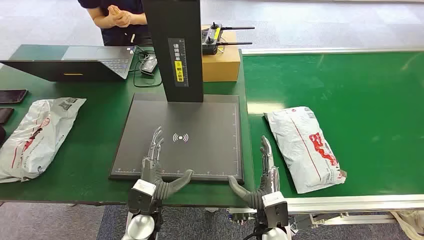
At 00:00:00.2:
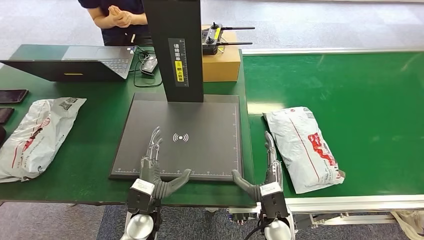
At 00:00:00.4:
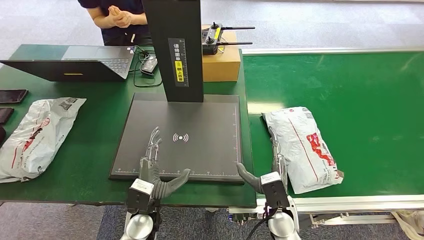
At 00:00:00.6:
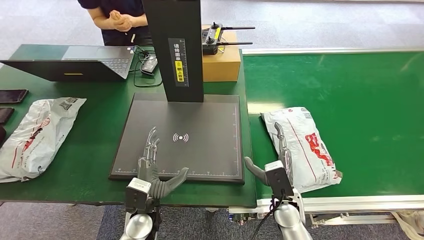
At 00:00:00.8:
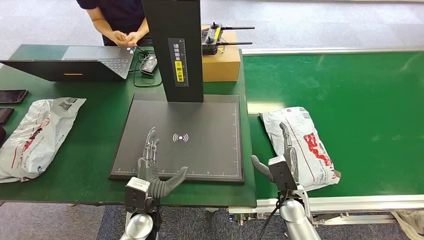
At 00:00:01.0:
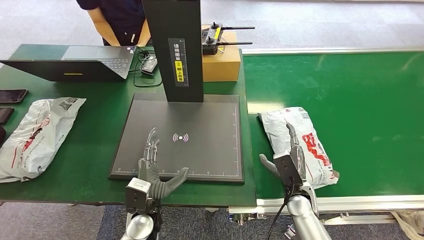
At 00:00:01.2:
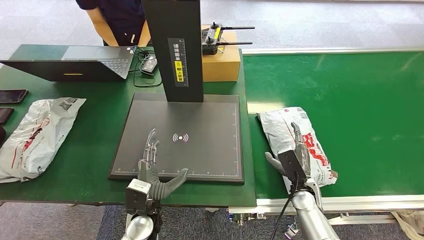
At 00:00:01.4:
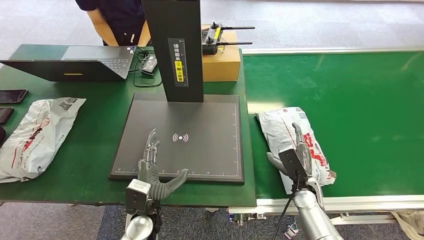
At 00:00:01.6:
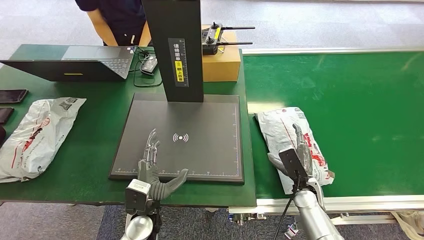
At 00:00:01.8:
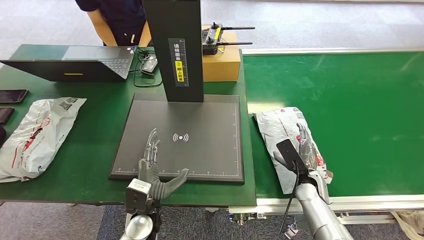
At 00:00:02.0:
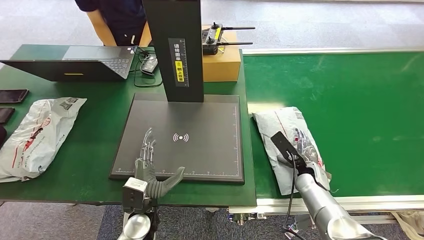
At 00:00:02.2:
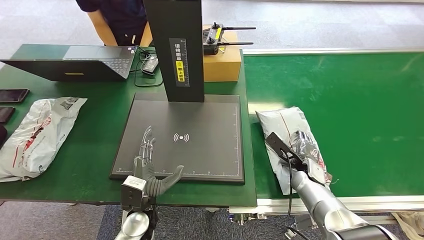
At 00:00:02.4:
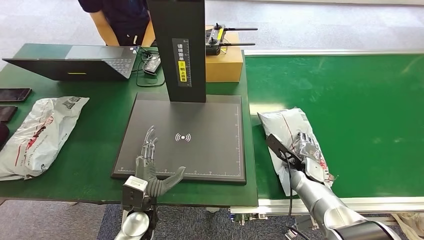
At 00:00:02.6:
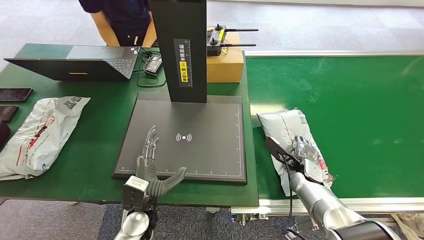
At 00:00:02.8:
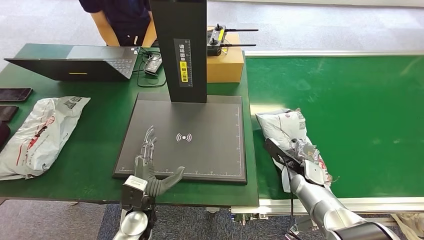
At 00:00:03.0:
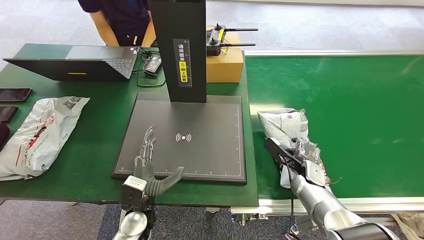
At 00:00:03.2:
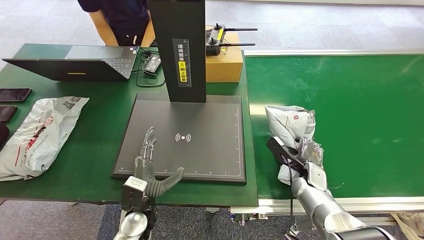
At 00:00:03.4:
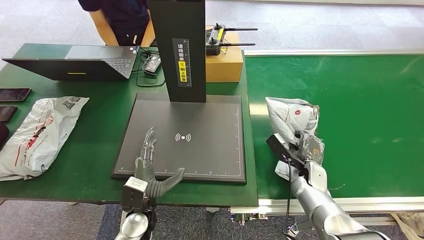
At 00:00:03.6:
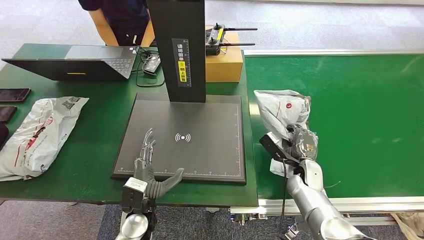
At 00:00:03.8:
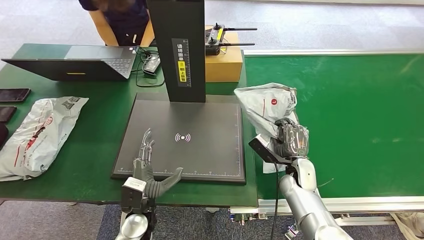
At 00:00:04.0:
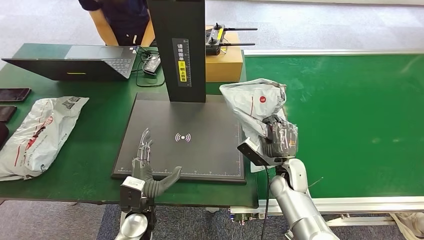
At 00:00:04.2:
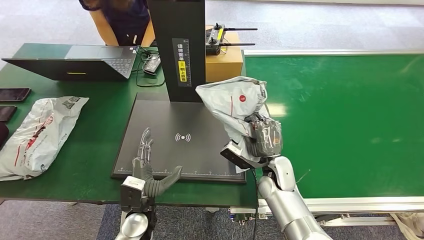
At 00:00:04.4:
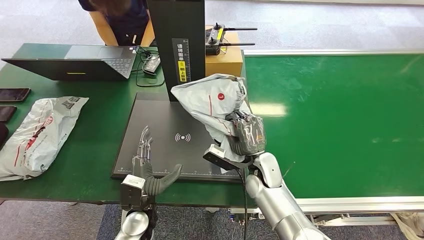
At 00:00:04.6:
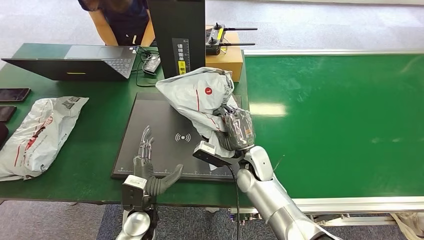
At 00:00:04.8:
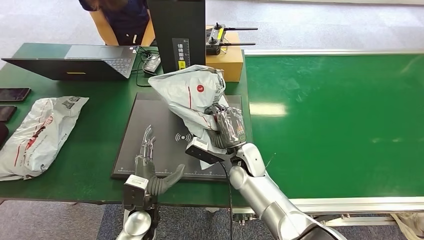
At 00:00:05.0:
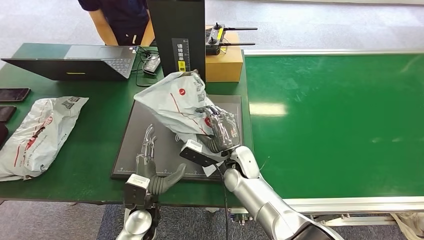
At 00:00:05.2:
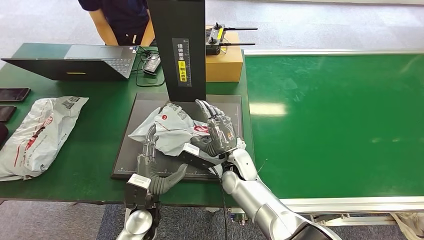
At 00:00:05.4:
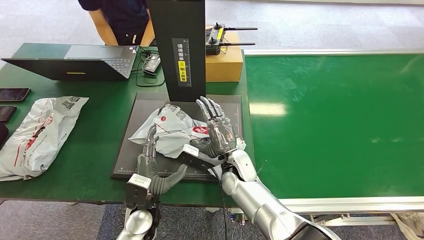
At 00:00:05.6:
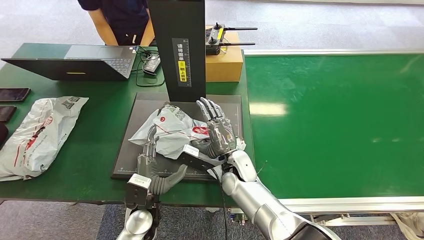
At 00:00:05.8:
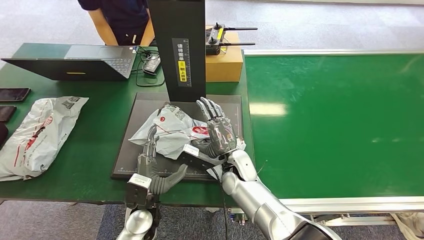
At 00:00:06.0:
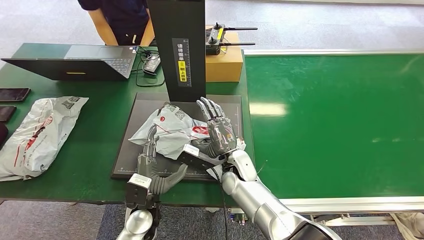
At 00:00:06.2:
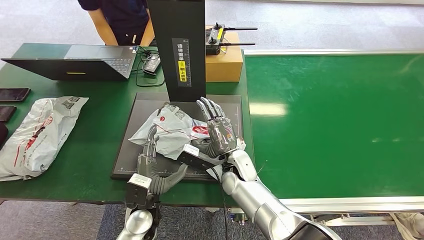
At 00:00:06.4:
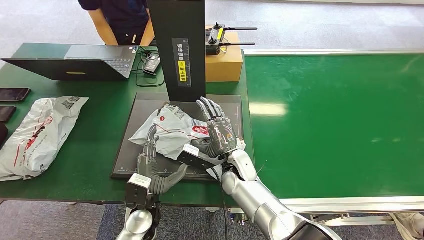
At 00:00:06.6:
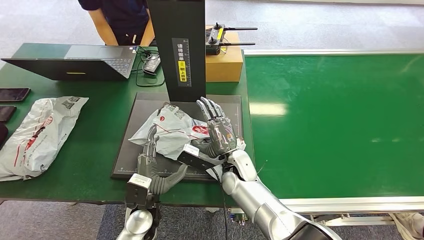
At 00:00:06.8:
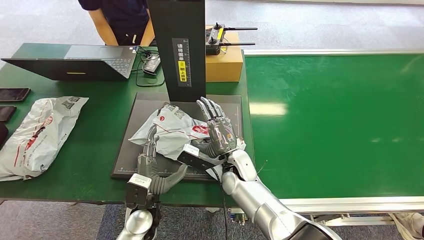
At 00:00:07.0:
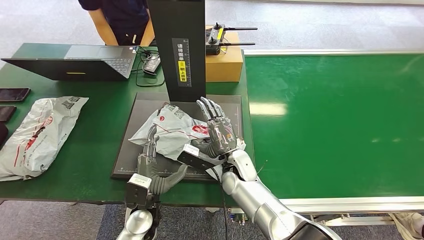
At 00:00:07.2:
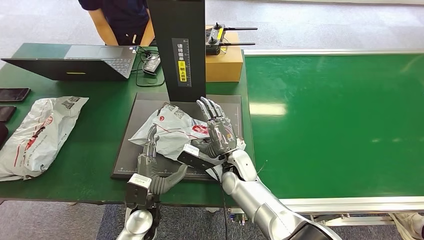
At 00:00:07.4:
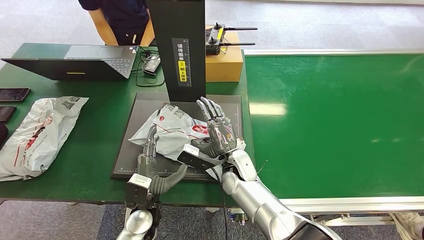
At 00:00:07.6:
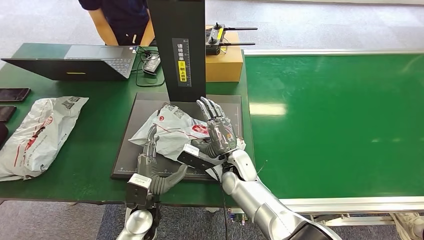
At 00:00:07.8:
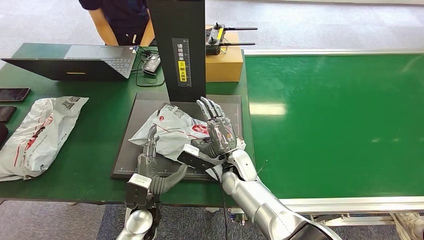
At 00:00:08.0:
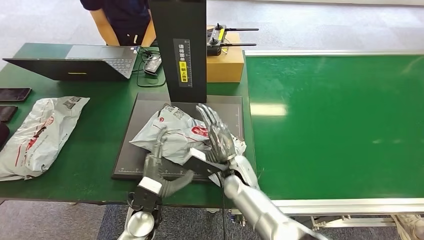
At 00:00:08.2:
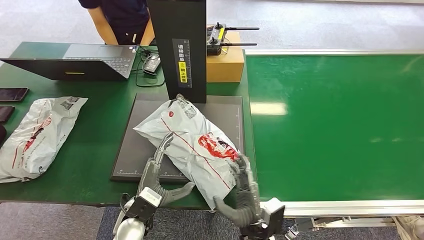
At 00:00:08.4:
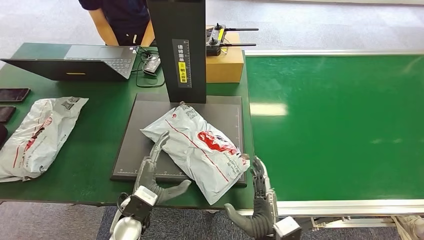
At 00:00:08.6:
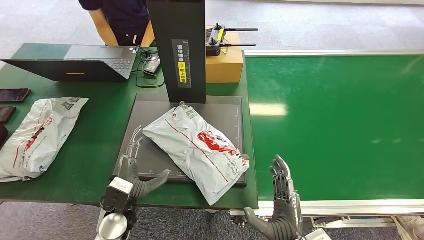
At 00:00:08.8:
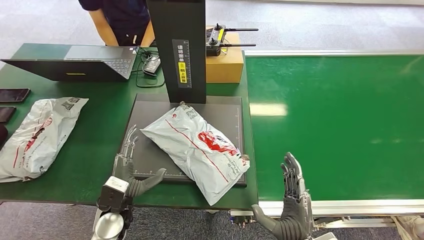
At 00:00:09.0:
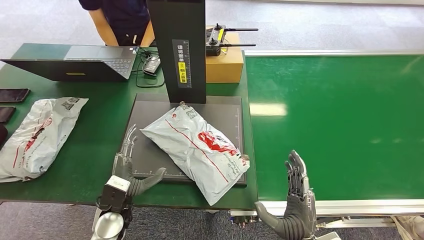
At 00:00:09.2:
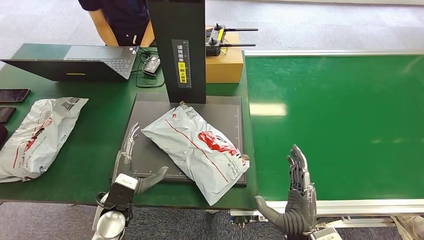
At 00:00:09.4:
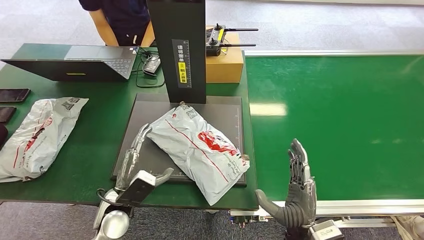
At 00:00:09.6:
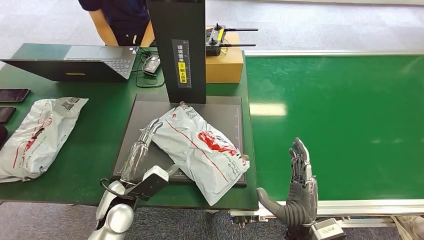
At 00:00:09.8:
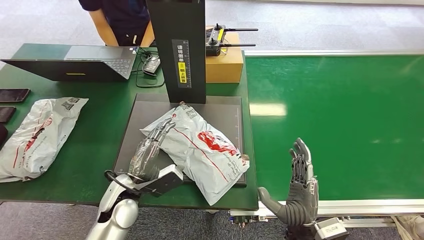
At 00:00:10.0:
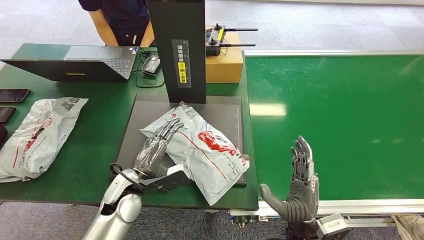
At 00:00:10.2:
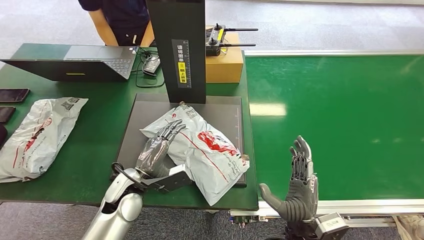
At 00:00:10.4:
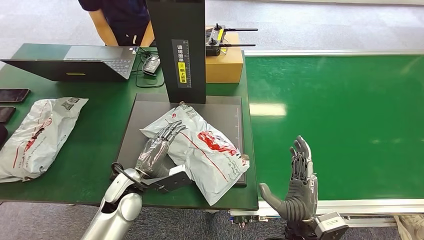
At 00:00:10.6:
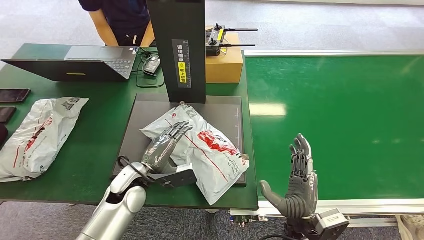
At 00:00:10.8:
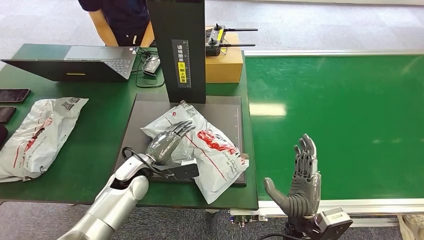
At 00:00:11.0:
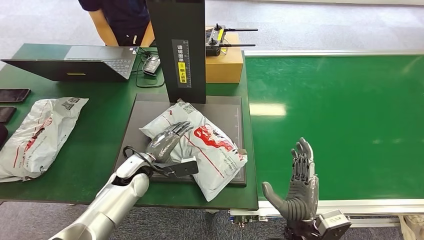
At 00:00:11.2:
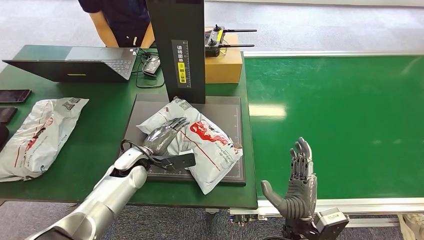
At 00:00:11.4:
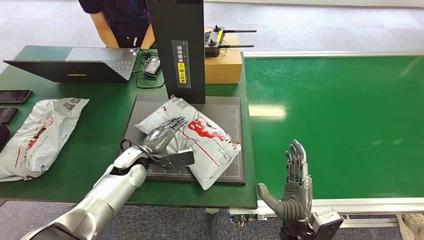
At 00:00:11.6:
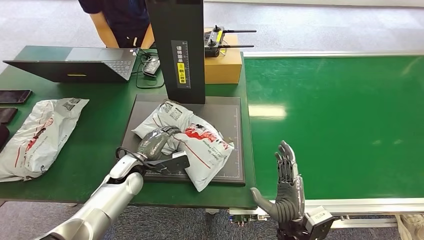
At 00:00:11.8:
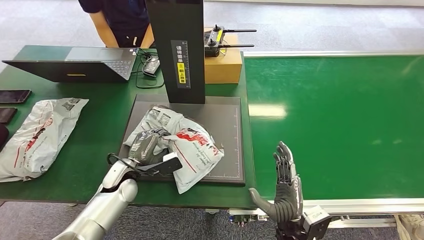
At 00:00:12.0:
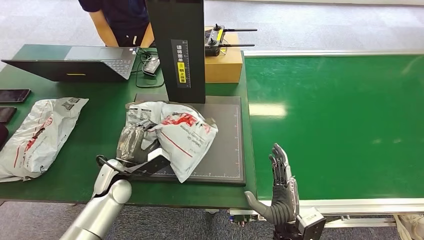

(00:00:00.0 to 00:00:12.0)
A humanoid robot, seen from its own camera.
Step, 00:00:00.0 - 00:00:04.0: Pick up the package from the conveyor belt.
Step, 00:00:04.2 - 00:00:08.4: Place the package onto the inbound machine.
00:00:01.6 - 00:00:03.0: The right hand travels forward by roughly 5 cm.
00:00:04.4 - 00:00:06.0: The right hand moves to the left, roughly 5 cm.
00:00:06.0 - 00:00:07.6: Neither hand changes place.
00:00:07.6 - 00:00:09.0: The right hand moves backward and to the right, roughly 25 cm. The left hand heads to the left, covering about 5 cm.
00:00:09.0 - 00:00:10.4: The left hand heads forward, covering roughly 5 cm.
00:00:10.4 - 00:00:12.0: The left hand goes roughly 5 cm to the left.

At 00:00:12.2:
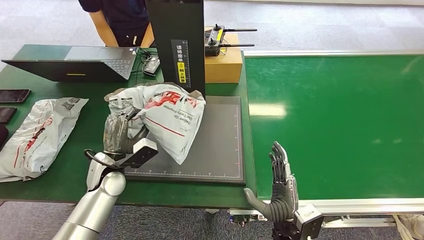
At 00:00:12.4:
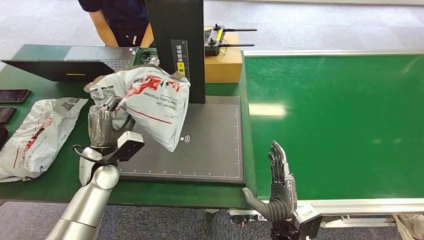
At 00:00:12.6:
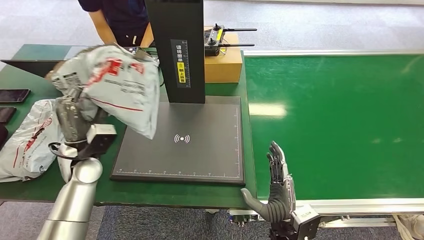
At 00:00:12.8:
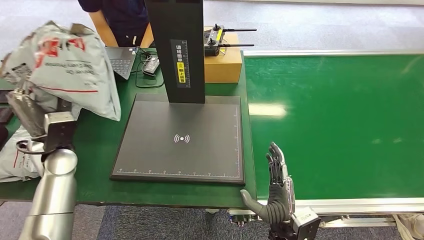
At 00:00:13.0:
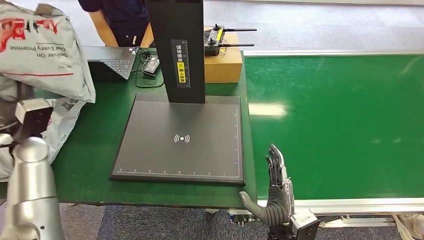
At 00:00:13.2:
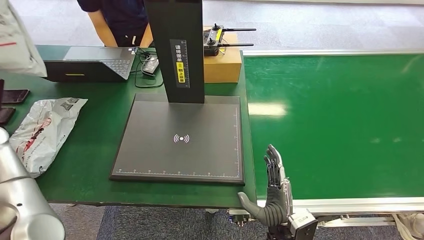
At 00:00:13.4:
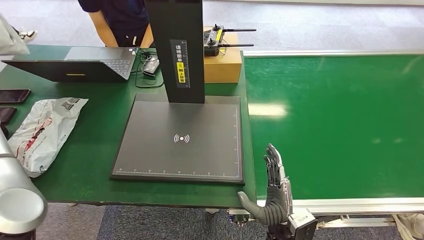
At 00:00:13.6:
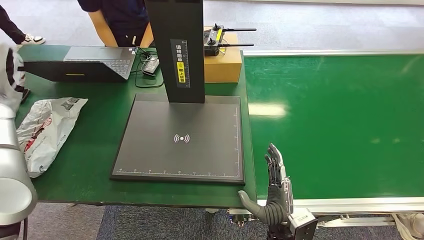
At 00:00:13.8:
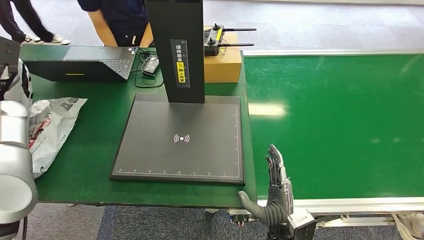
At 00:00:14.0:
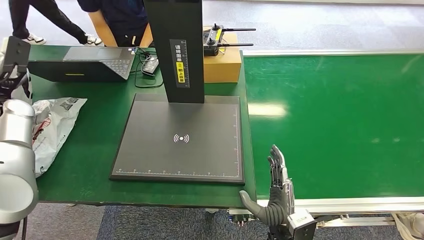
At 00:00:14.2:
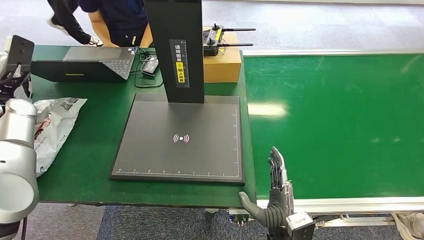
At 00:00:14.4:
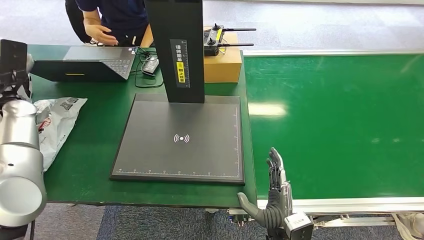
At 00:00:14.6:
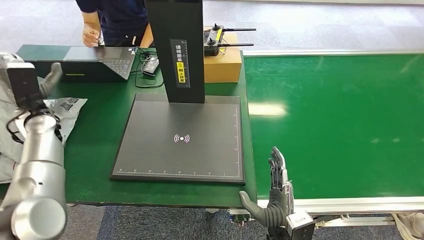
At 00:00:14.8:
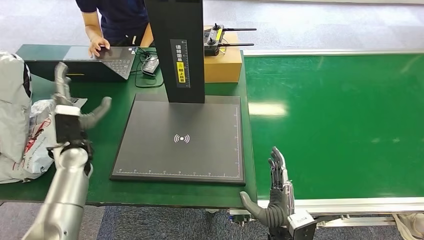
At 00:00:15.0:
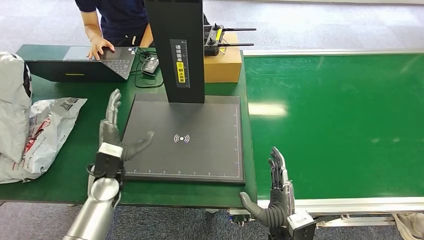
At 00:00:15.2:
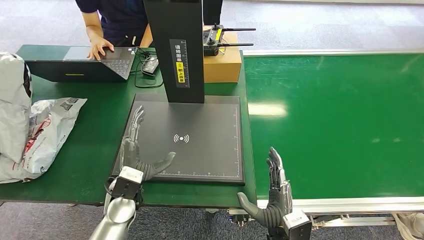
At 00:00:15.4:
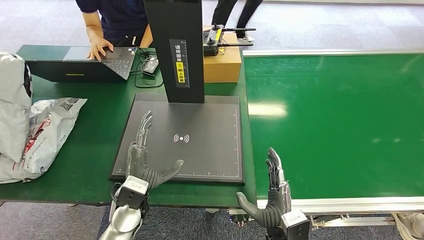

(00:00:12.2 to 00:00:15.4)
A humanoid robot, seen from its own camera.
Step, 00:00:12.6 - 00:00:15.4: Place the package into the parcel locker.
00:00:13.8 - 00:00:15.4: The left hand travels to the right, backward and downward by some 40 cm.
